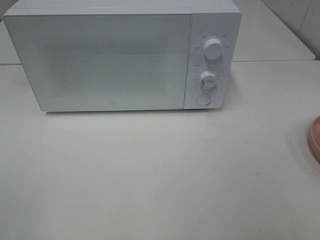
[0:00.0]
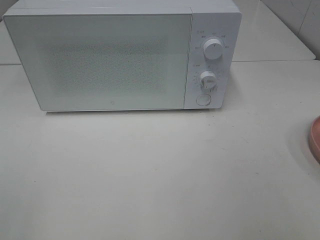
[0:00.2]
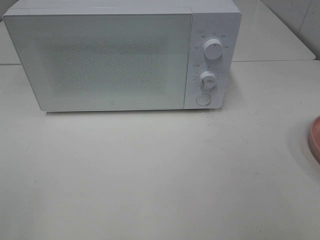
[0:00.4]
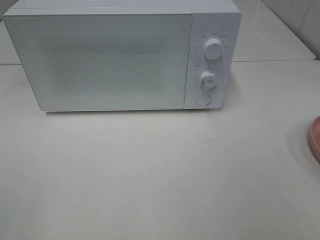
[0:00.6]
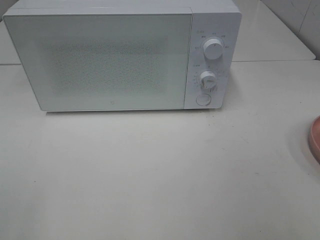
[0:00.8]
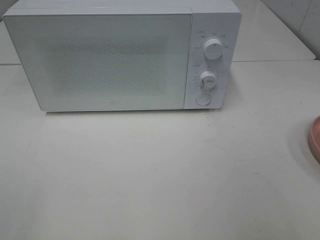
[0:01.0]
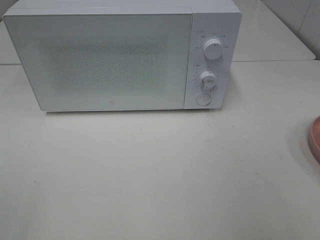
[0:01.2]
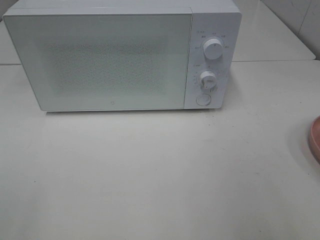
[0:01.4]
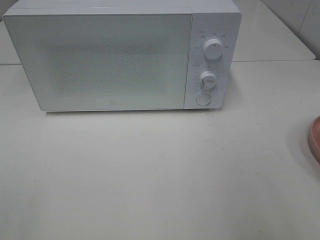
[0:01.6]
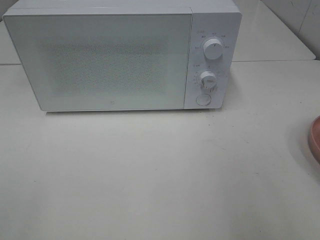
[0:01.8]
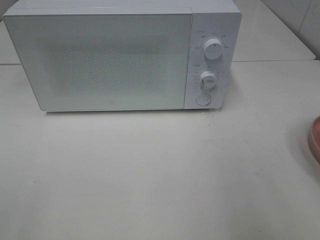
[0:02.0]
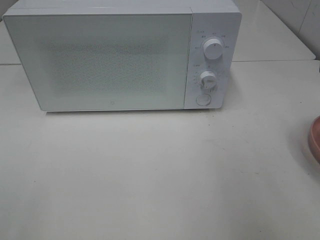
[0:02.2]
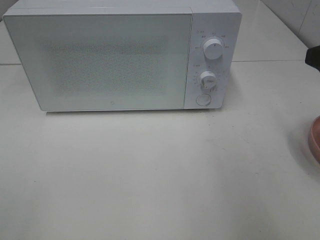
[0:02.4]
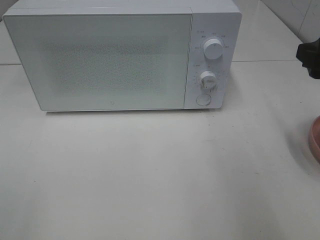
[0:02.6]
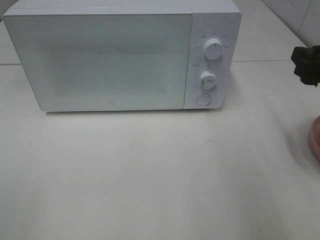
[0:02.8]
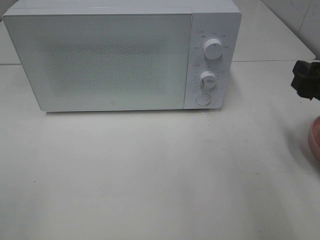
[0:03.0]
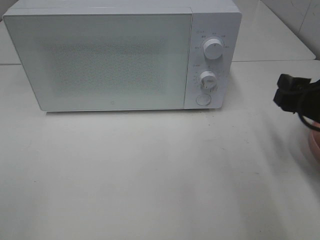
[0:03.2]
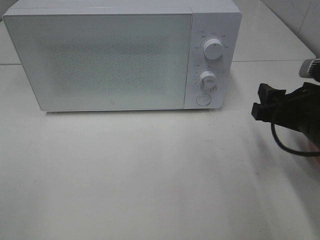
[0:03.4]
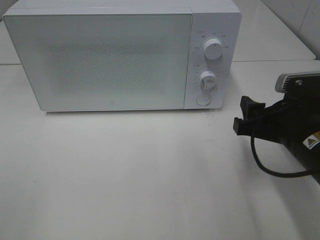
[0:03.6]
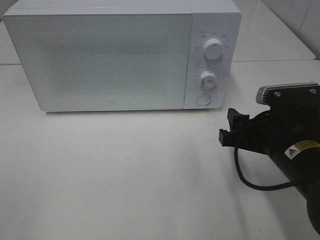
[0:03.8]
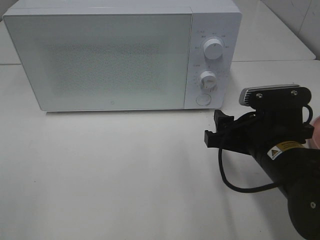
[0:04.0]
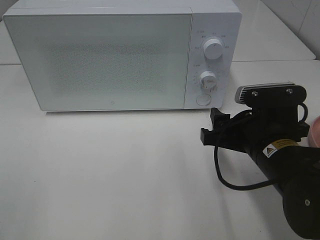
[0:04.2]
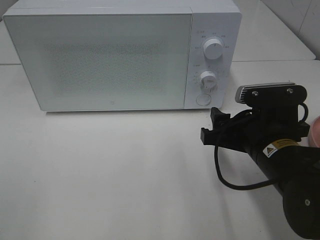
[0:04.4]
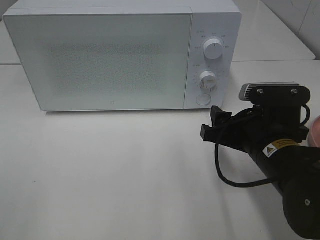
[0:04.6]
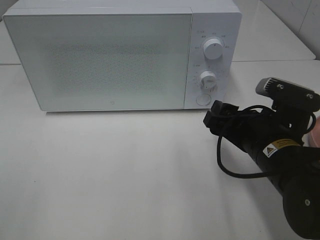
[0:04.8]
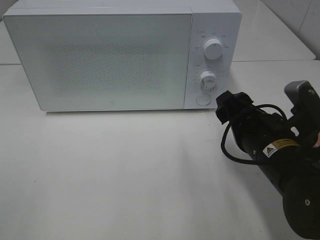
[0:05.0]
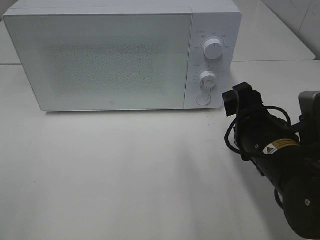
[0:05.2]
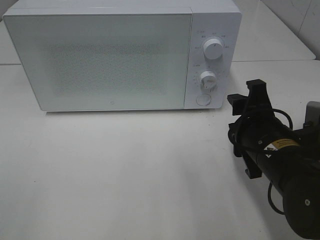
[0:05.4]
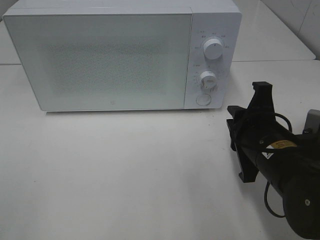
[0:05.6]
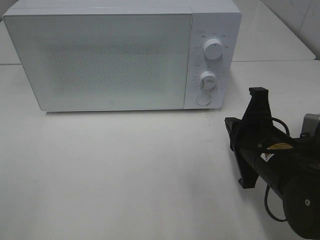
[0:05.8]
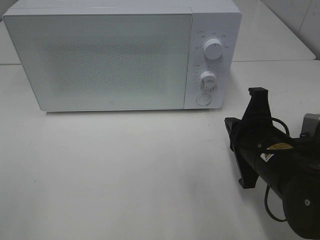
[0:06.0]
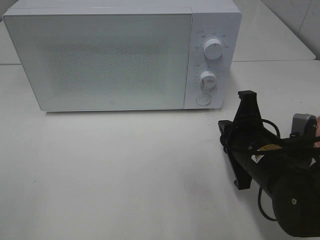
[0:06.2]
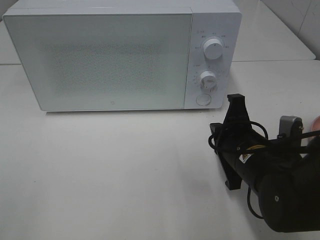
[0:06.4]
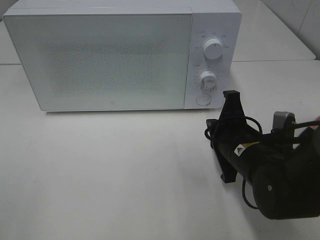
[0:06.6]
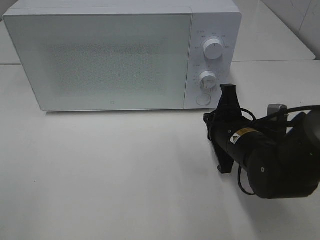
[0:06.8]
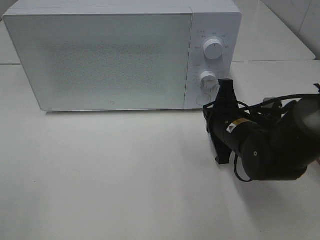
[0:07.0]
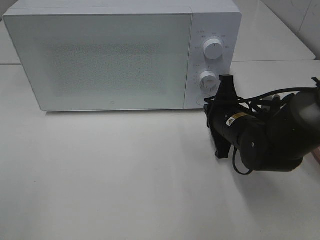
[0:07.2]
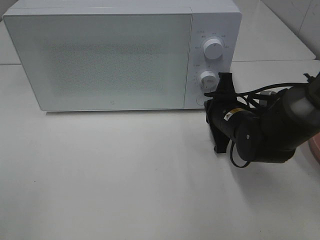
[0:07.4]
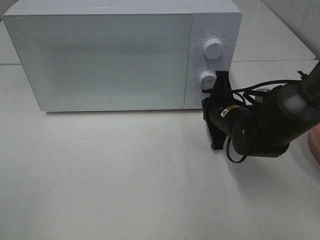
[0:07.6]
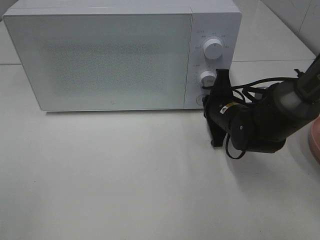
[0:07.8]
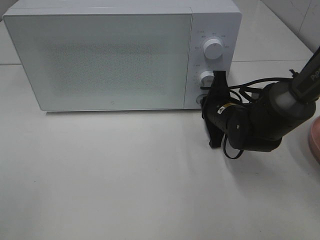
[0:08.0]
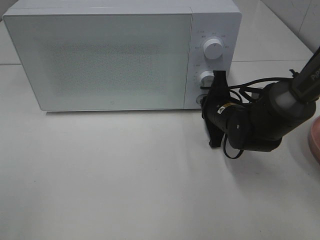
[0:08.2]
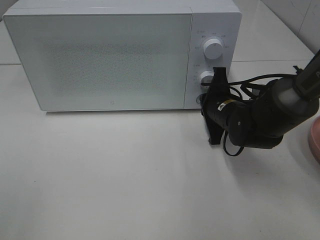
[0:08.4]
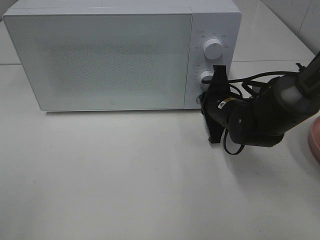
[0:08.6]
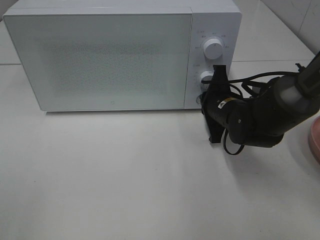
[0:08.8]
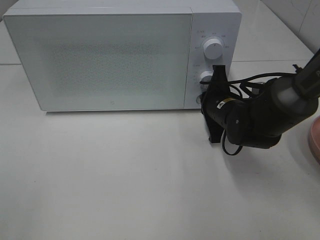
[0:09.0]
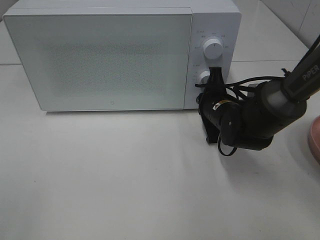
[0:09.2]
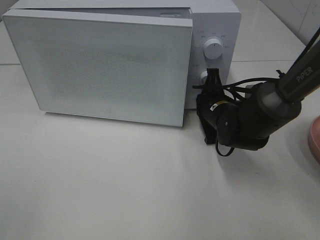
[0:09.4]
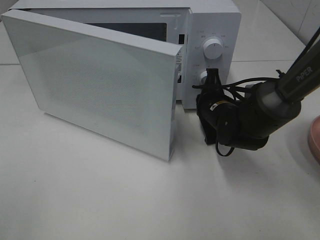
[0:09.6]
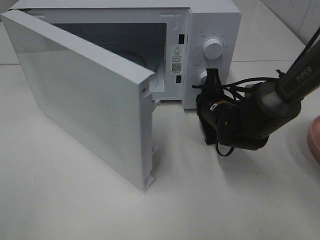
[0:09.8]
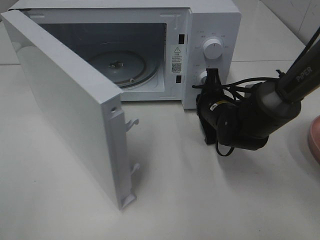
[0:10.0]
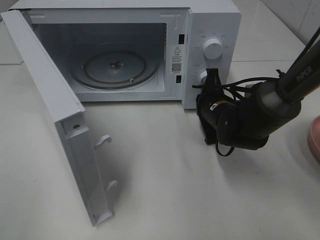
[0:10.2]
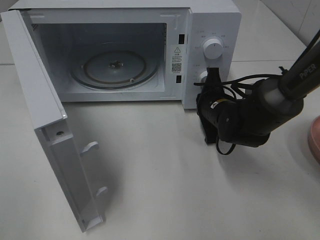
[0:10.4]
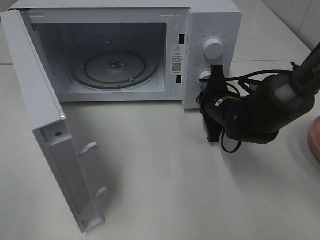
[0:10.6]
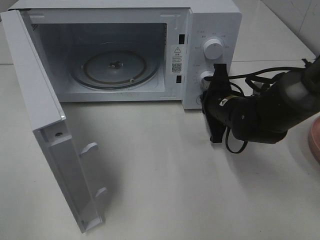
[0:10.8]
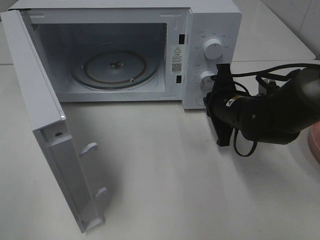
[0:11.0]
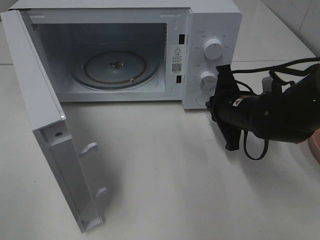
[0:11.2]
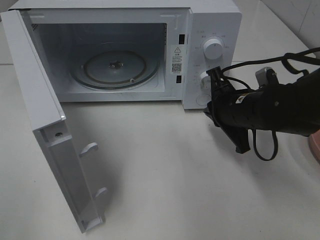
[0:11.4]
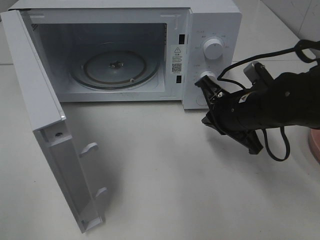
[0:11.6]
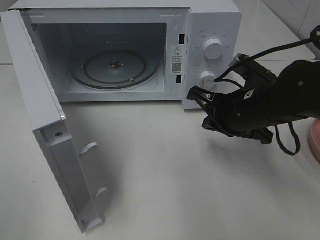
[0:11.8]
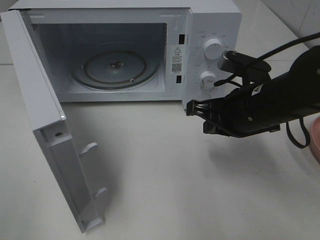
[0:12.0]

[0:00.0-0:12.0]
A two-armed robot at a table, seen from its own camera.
Task of the whole recording: Heat Sandwich.
Step, 0:00.0 to 0:11.0: Right hand: press the switch.
0:01.6 to 0:03.0: The right gripper is displaced forward and downward by about 15 cm.
0:03.0 to 0:04.4: The right gripper travels to the left and downward by about 15 cm.
0:04.4 to 0:06.0: The right gripper closes its fingers.
0:06.0 to 0:07.6: The right gripper shifts some 15 cm forward.
0:07.6 to 0:09.0: There are only small adjustments of the grippers.
0:10.4 to 0:12.0: The right gripper goes roughly 15 cm backward and upward.

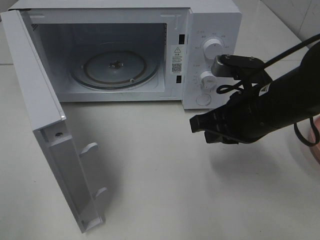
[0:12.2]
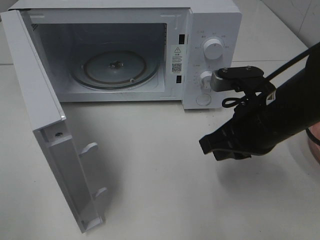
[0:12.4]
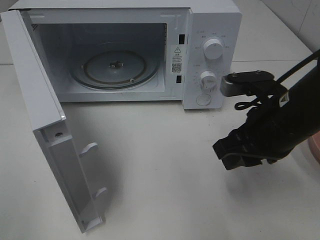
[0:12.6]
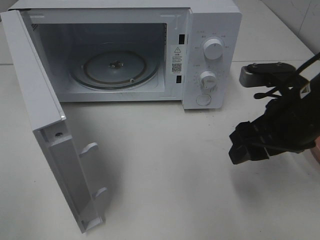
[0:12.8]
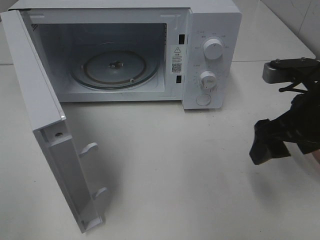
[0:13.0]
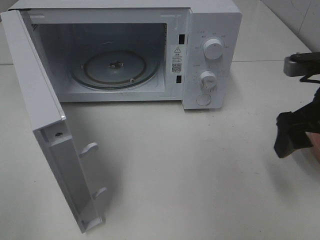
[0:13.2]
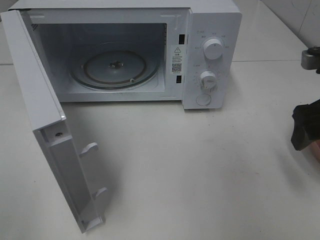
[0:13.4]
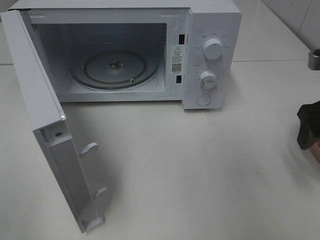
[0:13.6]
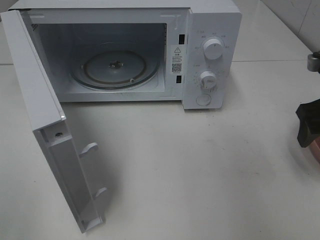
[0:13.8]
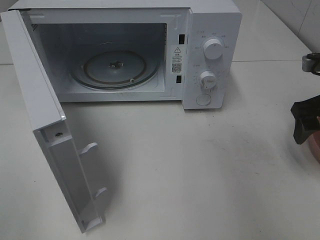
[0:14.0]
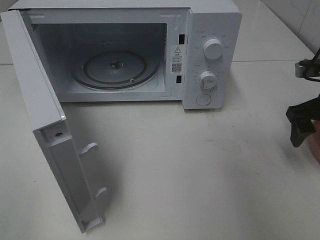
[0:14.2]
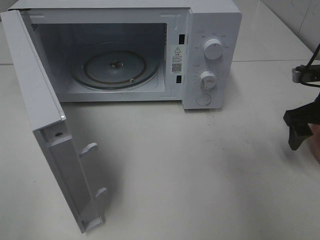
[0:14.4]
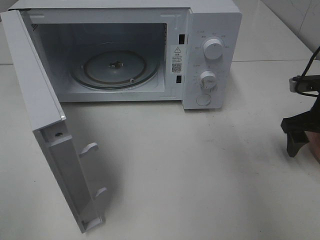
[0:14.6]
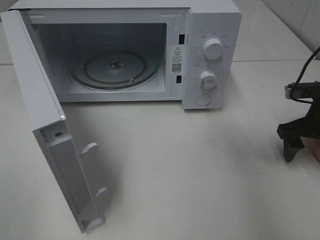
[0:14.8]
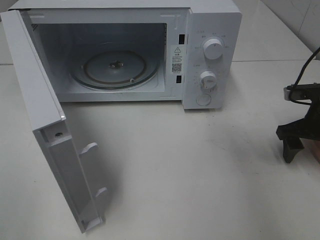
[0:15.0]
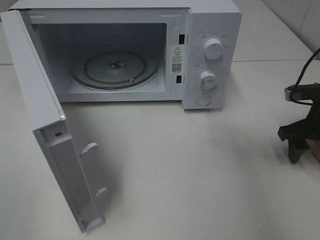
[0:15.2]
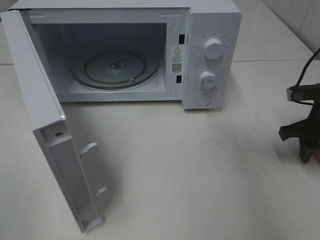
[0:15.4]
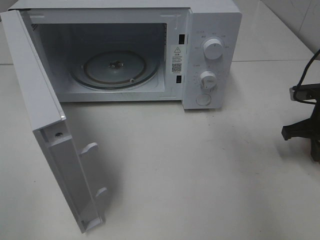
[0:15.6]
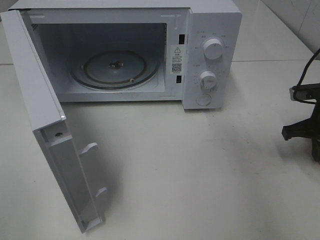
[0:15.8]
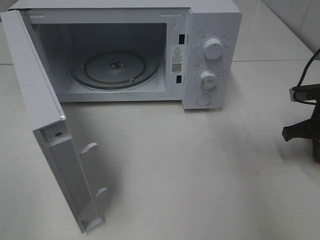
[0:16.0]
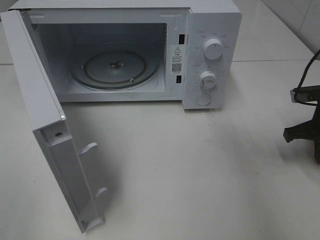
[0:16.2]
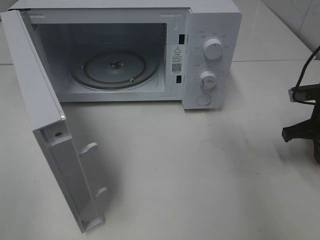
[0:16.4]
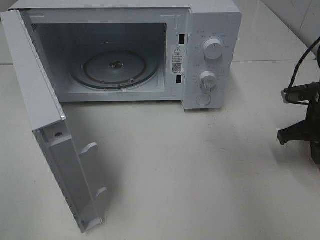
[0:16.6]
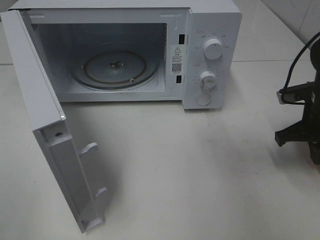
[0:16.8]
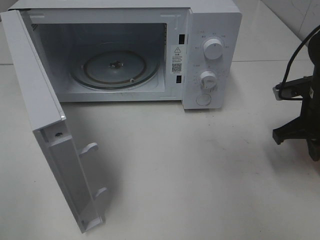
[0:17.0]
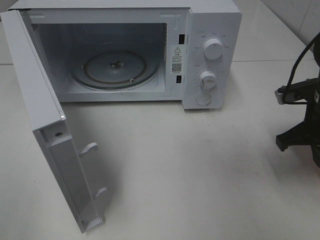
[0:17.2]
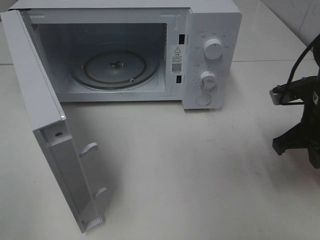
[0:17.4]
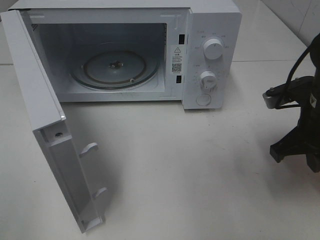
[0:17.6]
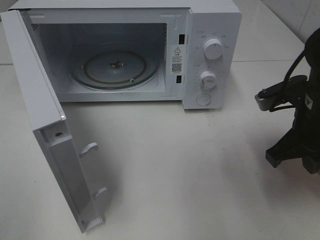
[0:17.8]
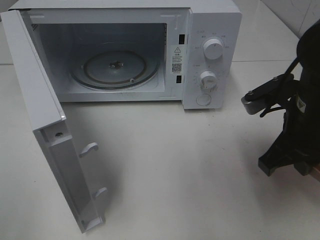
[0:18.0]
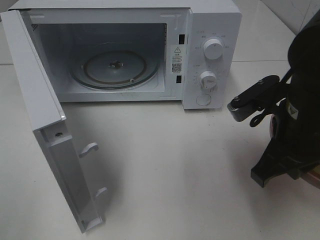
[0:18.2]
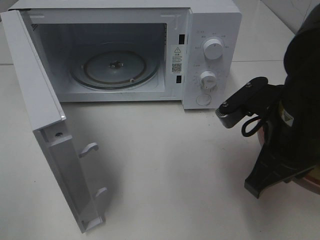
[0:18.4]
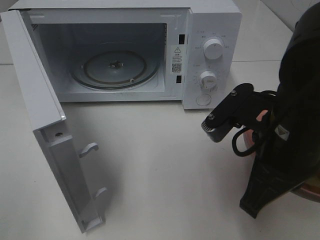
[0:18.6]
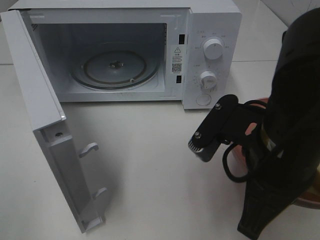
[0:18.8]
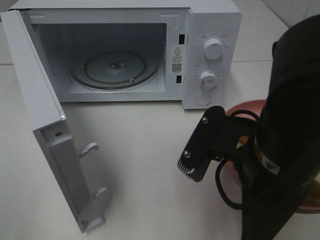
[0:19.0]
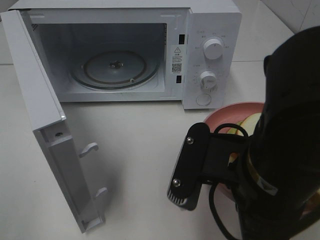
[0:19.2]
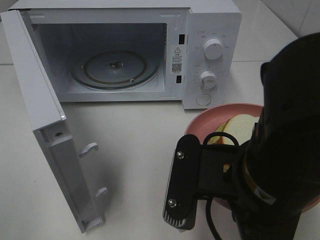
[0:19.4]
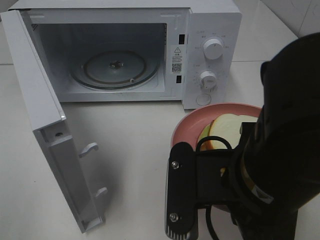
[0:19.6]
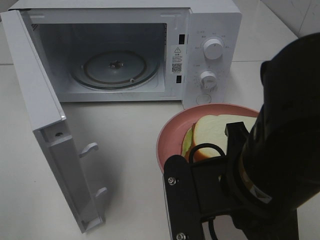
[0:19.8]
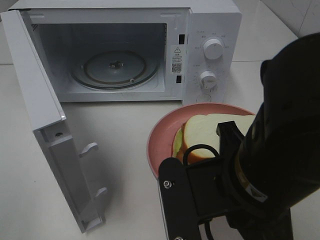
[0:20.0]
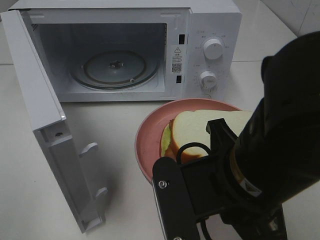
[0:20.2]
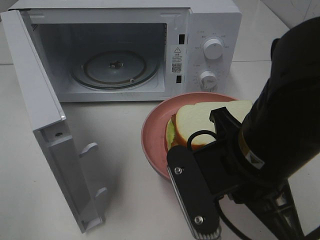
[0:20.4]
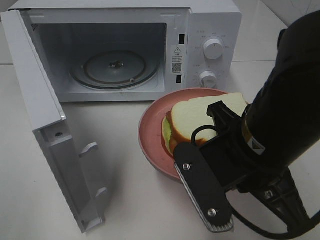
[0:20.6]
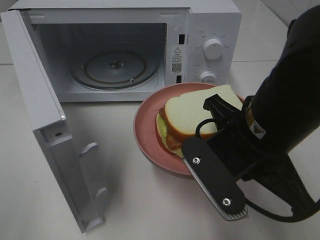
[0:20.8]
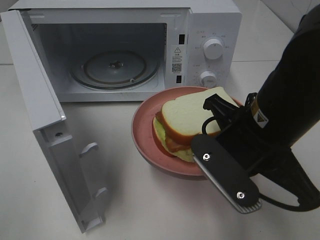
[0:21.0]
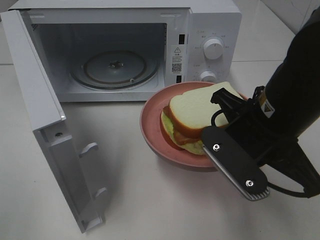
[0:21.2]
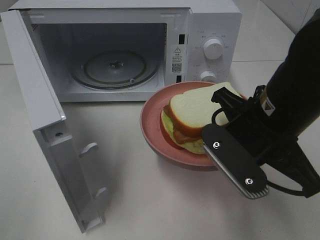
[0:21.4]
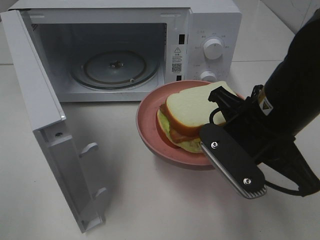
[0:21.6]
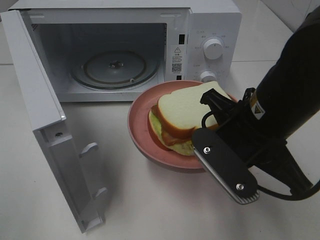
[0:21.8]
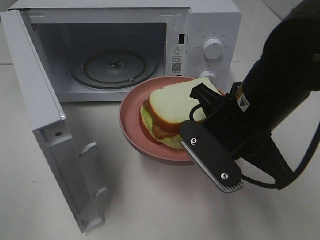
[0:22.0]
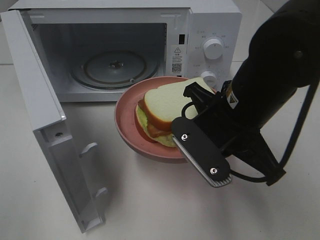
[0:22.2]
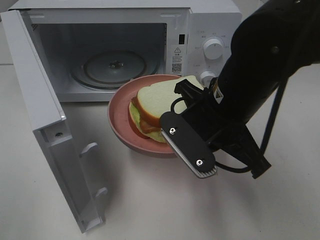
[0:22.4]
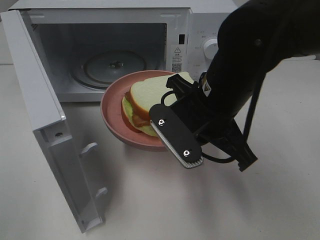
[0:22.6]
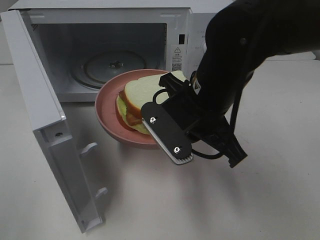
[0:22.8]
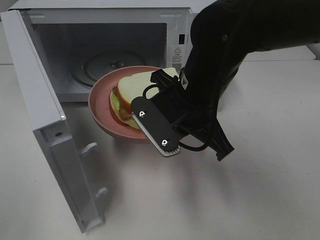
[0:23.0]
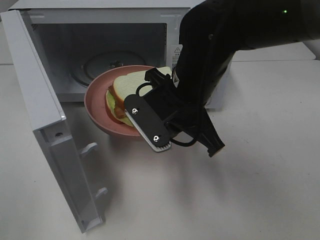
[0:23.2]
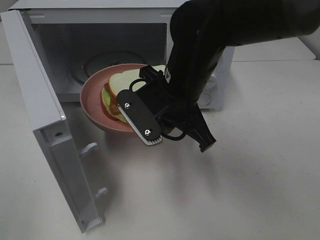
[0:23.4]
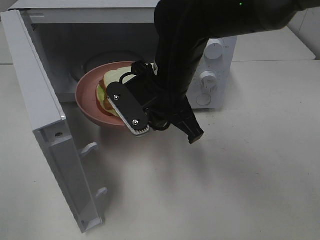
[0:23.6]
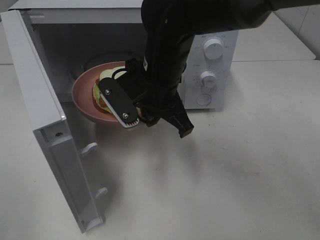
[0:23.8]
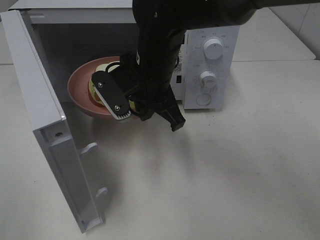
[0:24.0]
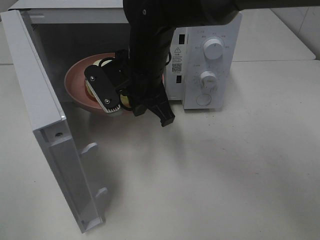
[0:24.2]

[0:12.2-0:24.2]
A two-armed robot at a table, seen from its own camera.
Task of the whole recording: Heat Sandwich.
Step, 0:12.2 to 0:16.4: Right hand: grab the plate with the sandwich.
0:12.2 to 0:13.8: The right gripper goes roughly 15 cm to the right, and opens.
0:13.8 to 0:15.2: The right gripper travels downward and forward by roughly 10 cm.
0:15.2 to 0:16.6: The right gripper closes up.
0:16.6 to 0:18.2: The right gripper heads to the left, backward and upward, covering about 20 cm.
0:18.2 to 0:19.8: The right gripper heads backward and to the left, covering some 15 cm.
0:19.8 to 0:21.2: The right gripper shifts some 10 cm forward.
0:21.2 to 0:22.6: The right gripper heads to the left, covering approximately 5 cm.
0:22.6 to 0:24.2: The right gripper is displaced to the left and forward by some 15 cm.
